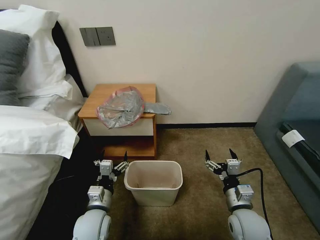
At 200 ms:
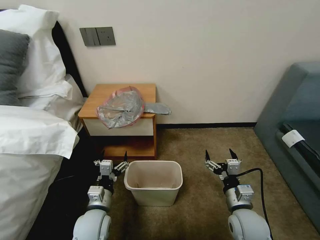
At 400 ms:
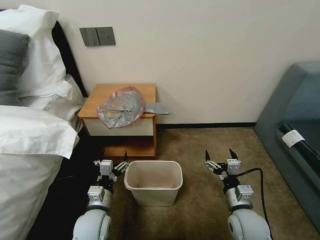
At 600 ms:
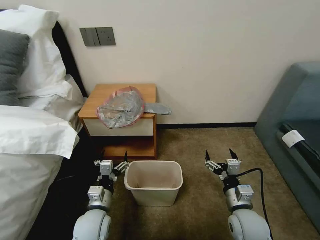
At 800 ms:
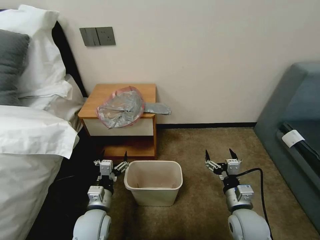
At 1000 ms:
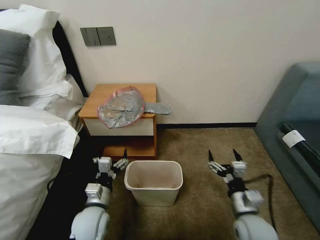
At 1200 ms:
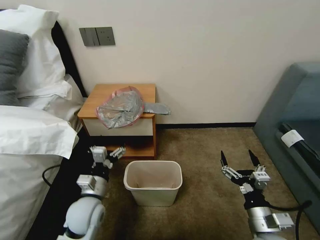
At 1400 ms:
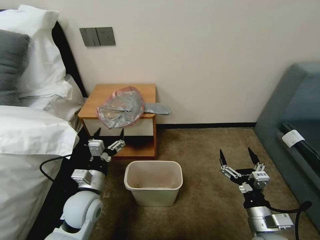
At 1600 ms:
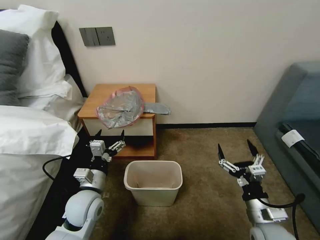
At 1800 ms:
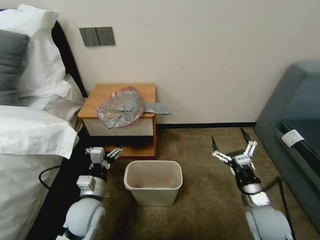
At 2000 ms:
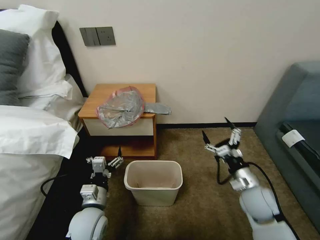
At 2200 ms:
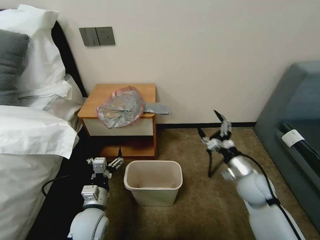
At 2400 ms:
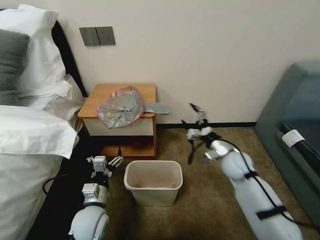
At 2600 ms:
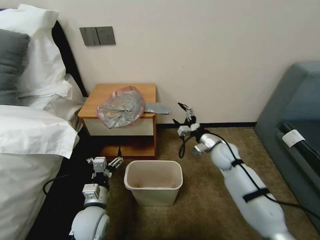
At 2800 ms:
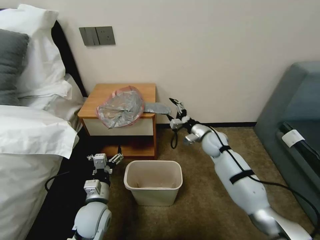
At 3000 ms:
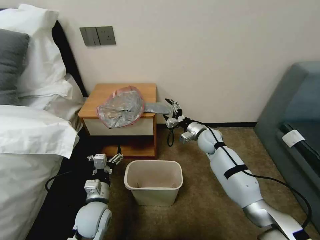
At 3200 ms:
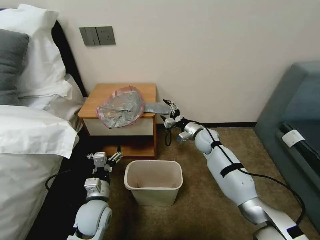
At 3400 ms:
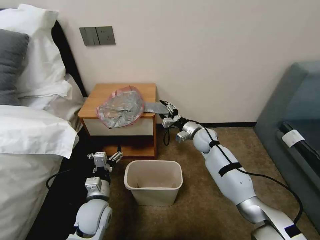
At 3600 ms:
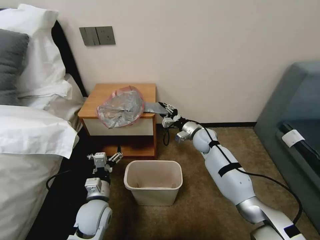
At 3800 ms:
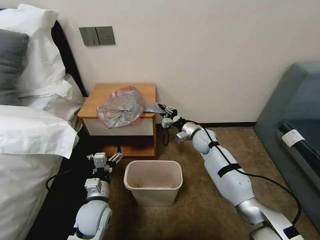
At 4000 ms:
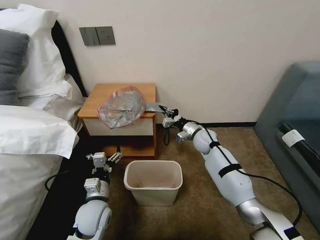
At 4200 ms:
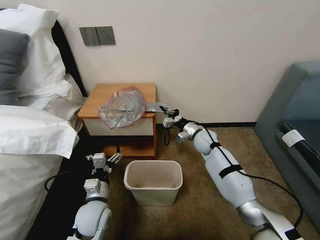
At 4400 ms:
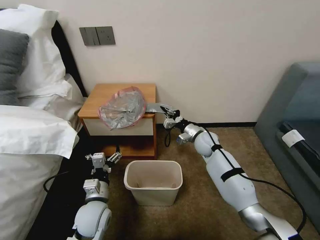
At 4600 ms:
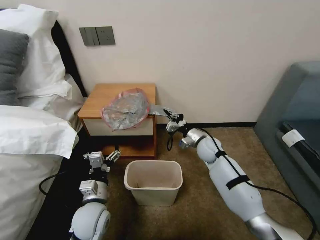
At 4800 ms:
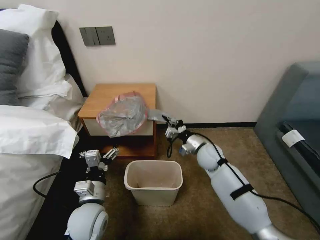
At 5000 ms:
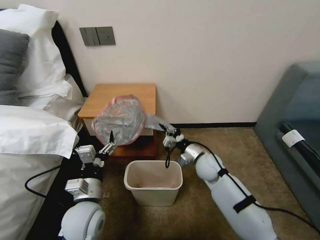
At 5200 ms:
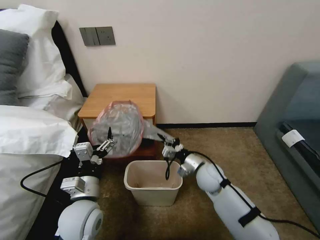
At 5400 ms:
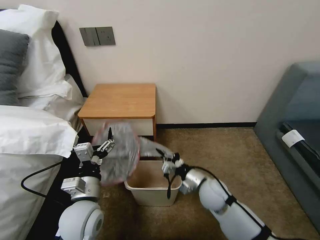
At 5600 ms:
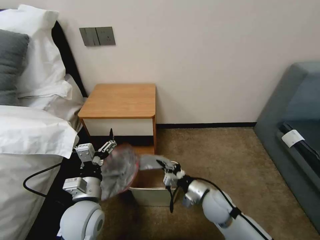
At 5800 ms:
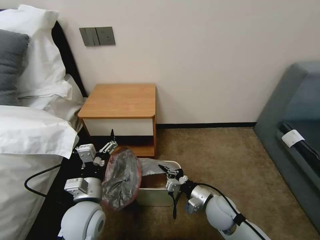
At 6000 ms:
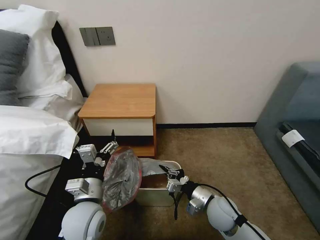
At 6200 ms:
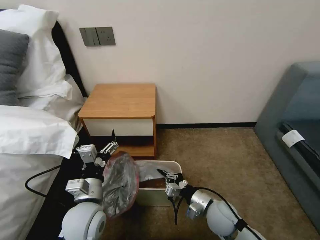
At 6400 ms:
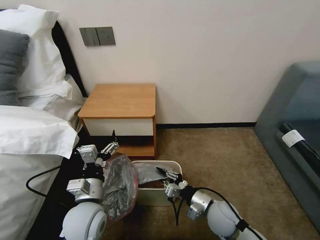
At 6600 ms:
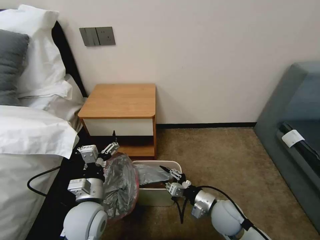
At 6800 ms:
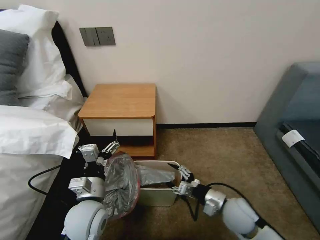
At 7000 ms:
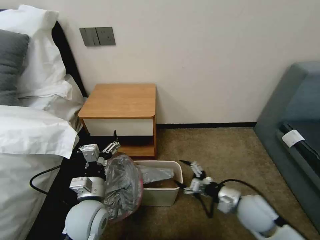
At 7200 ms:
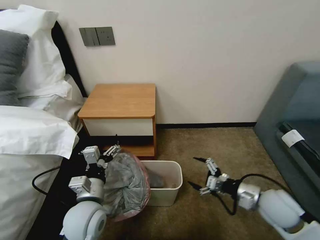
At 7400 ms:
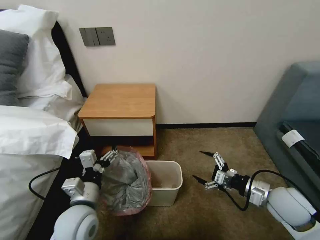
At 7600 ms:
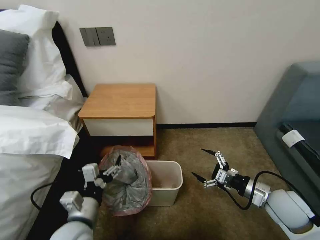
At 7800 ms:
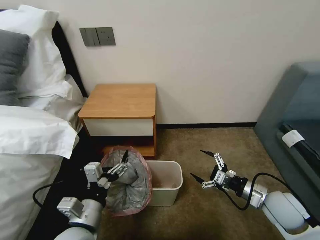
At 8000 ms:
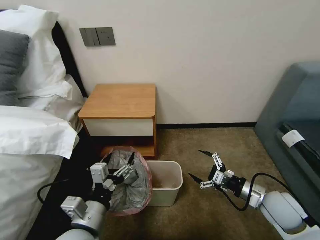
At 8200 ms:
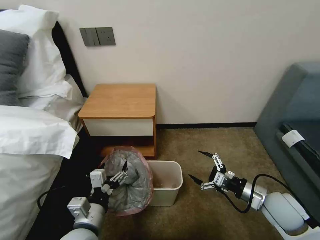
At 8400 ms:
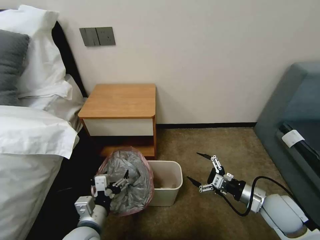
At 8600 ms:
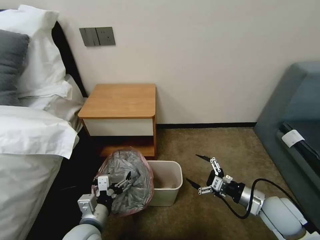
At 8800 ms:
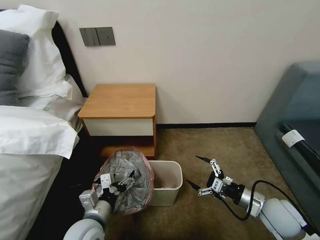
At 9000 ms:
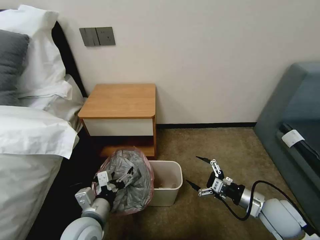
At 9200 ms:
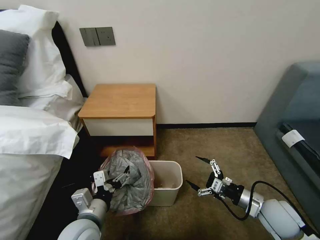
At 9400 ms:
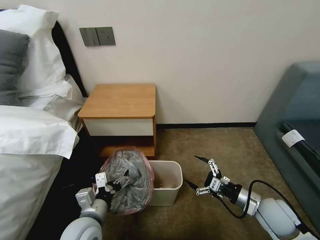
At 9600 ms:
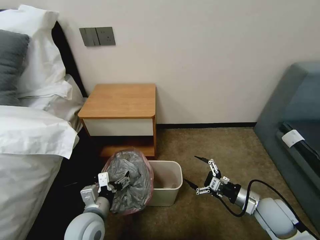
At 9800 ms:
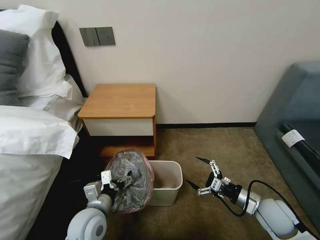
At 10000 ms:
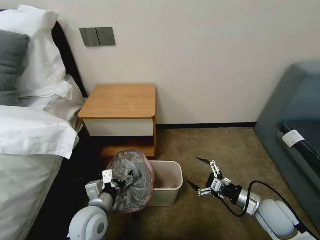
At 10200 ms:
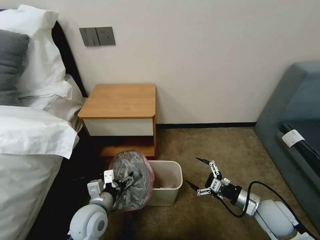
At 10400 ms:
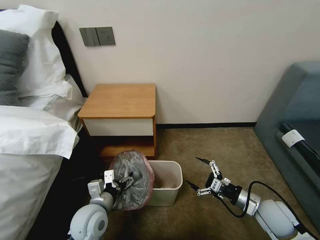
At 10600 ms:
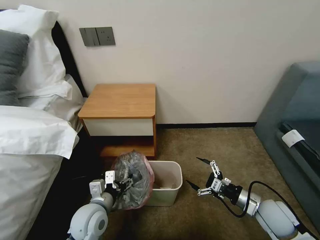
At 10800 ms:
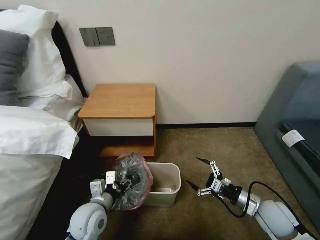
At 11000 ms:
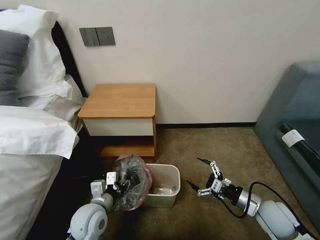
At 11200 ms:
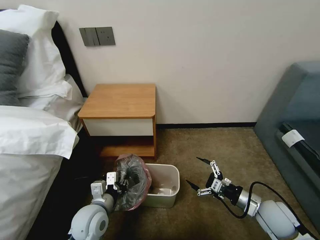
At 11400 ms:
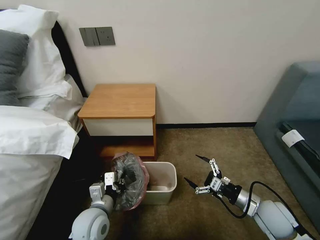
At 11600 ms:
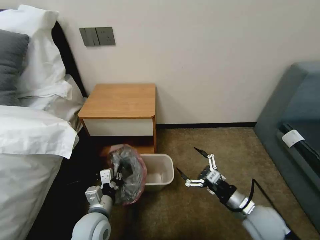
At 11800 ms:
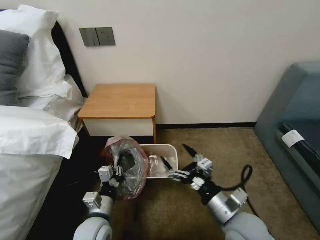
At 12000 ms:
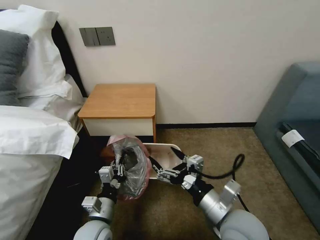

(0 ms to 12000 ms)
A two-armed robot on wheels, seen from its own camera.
Task of the whole recording: Pick up the garbage bag from the table and place it over the trash can.
1600 ms - 3000 ms: The left gripper changes place by roughly 5 cm. The right gripper shifts about 35 cm forward.
3000 ms - 4400 ms: The right gripper closes.
4400 ms - 6000 ms: The left gripper moves upward, some 10 cm. Meanwhile the right gripper goes approximately 25 cm backward.
6000 ms - 7600 ms: The right gripper goes about 20 cm to the right and upward, and opens up.
9000 ms - 10400 ms: The left gripper shifts by approximately 5 cm.
10400 ms - 12000 ms: The left gripper closes up. Meanwhile the right gripper moves to the left and upward, roughly 20 cm.

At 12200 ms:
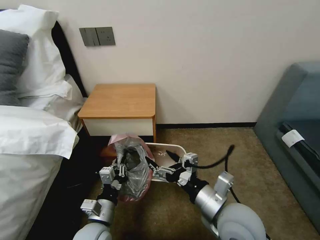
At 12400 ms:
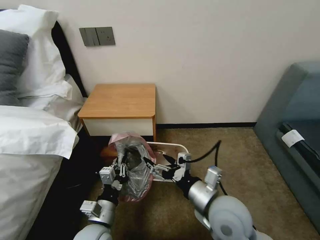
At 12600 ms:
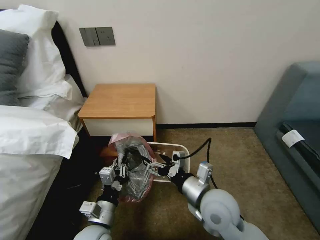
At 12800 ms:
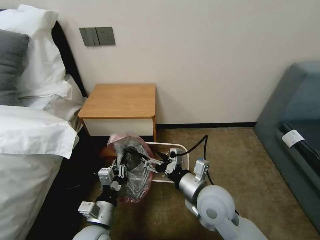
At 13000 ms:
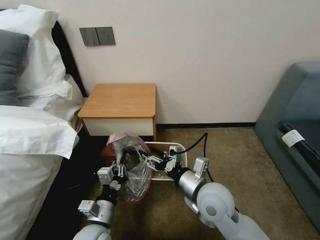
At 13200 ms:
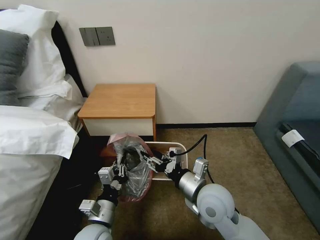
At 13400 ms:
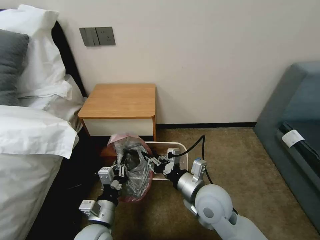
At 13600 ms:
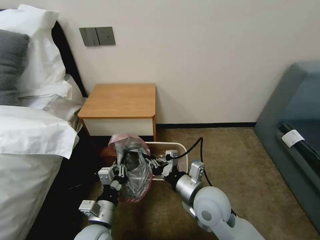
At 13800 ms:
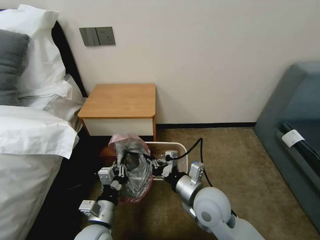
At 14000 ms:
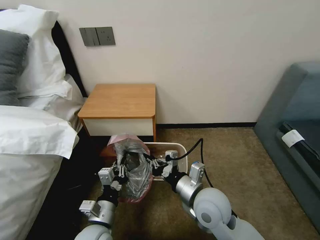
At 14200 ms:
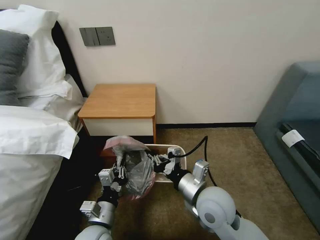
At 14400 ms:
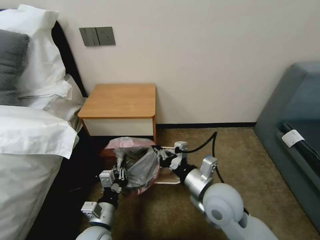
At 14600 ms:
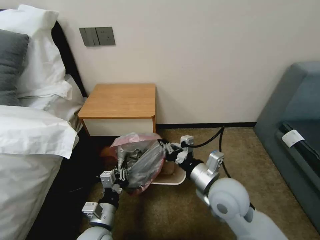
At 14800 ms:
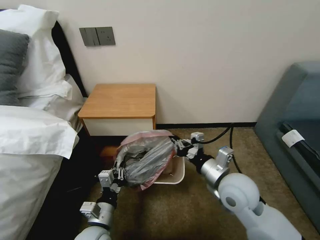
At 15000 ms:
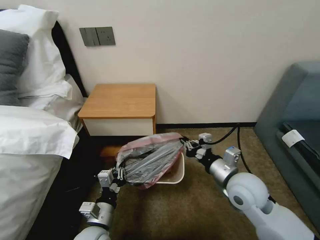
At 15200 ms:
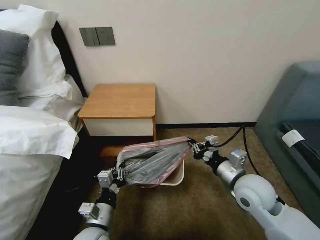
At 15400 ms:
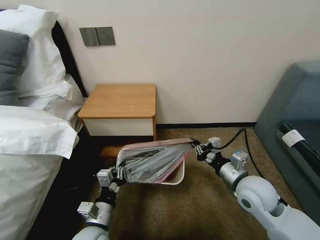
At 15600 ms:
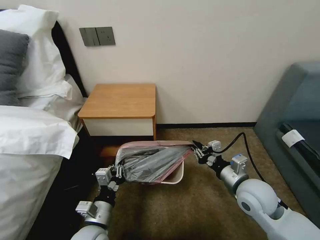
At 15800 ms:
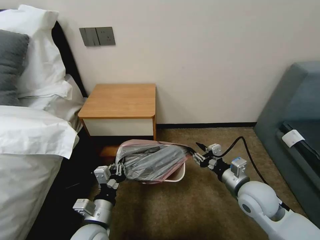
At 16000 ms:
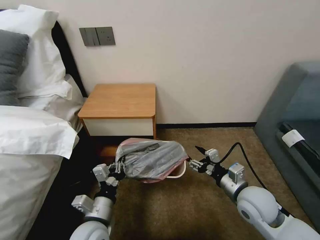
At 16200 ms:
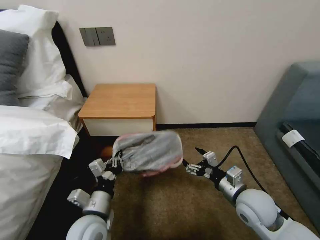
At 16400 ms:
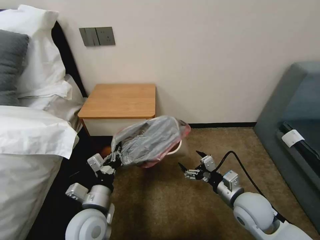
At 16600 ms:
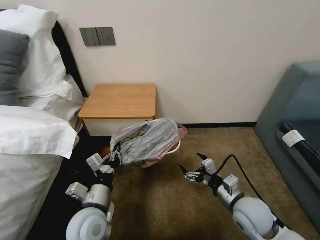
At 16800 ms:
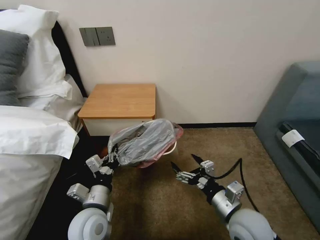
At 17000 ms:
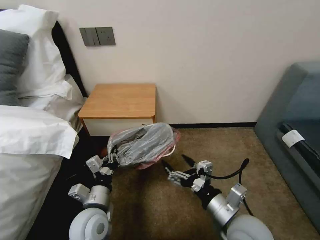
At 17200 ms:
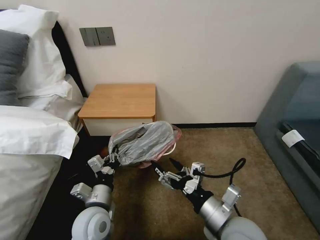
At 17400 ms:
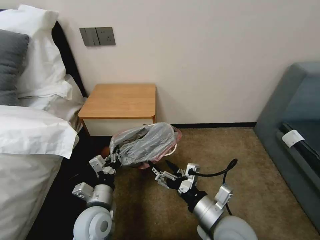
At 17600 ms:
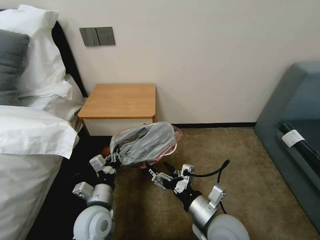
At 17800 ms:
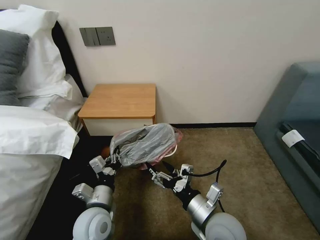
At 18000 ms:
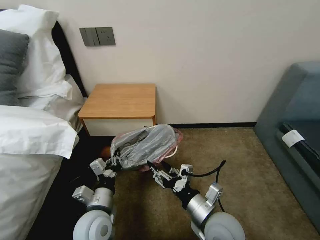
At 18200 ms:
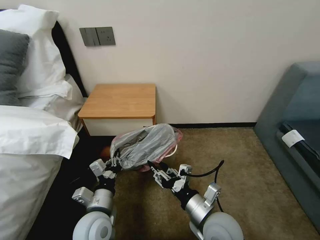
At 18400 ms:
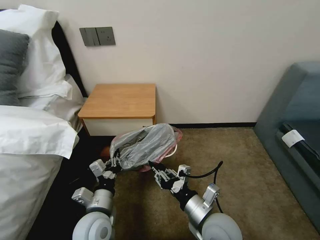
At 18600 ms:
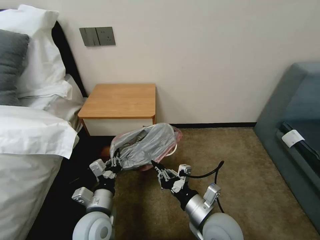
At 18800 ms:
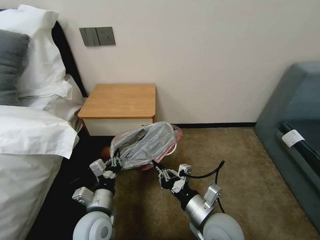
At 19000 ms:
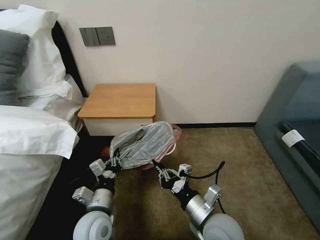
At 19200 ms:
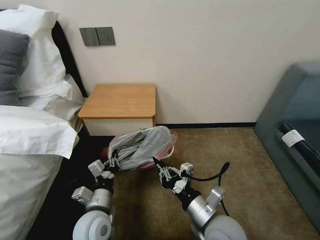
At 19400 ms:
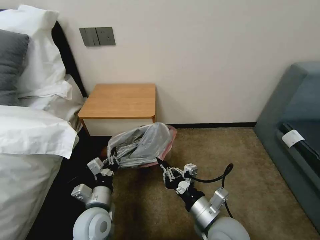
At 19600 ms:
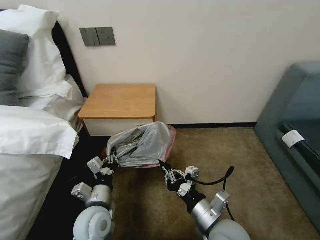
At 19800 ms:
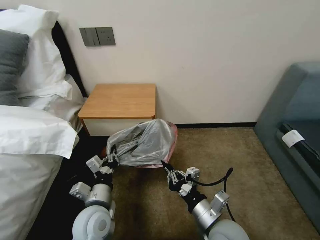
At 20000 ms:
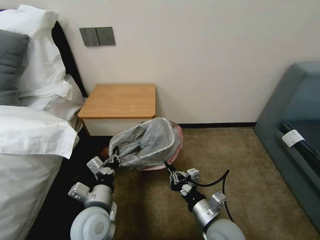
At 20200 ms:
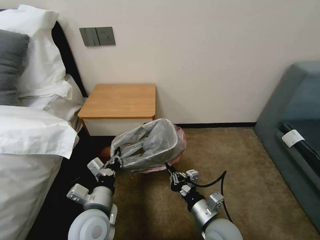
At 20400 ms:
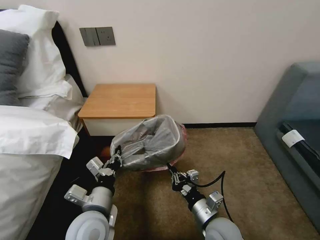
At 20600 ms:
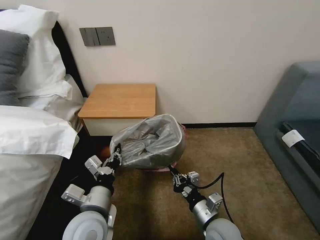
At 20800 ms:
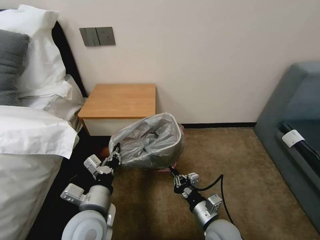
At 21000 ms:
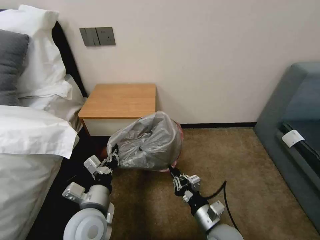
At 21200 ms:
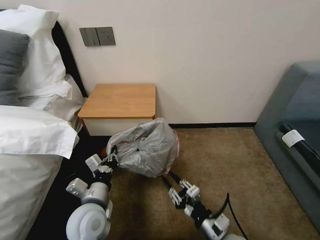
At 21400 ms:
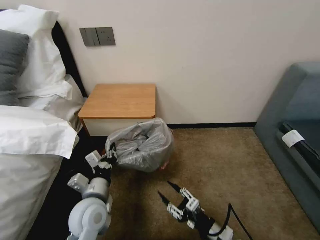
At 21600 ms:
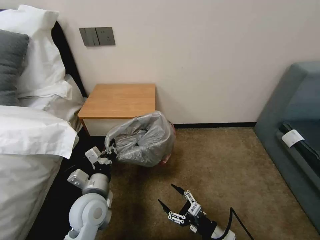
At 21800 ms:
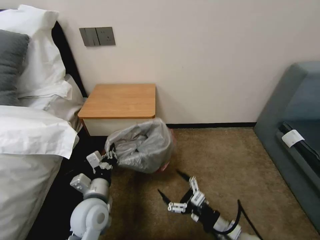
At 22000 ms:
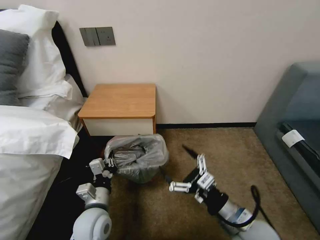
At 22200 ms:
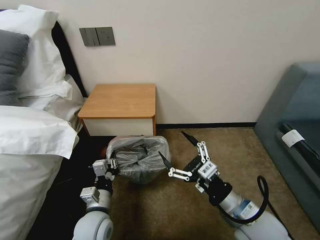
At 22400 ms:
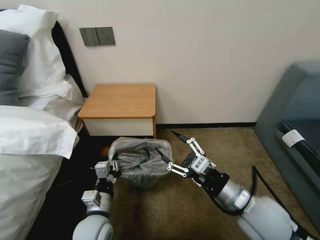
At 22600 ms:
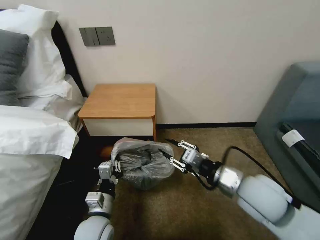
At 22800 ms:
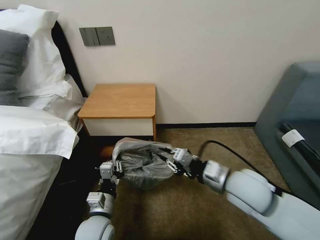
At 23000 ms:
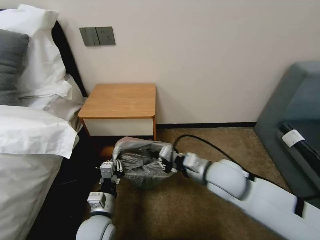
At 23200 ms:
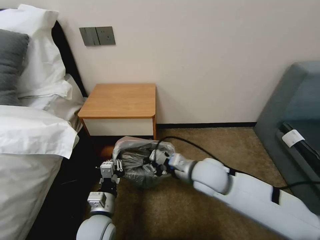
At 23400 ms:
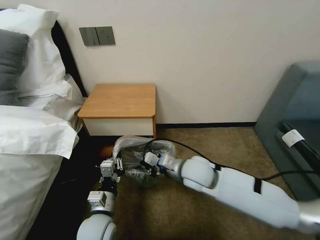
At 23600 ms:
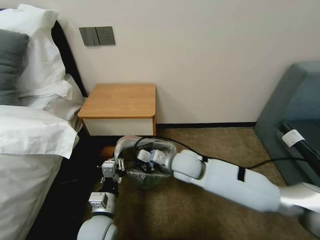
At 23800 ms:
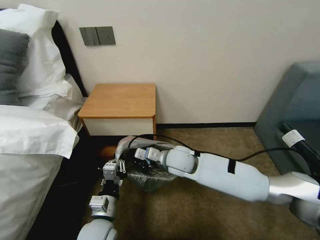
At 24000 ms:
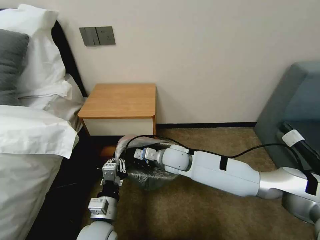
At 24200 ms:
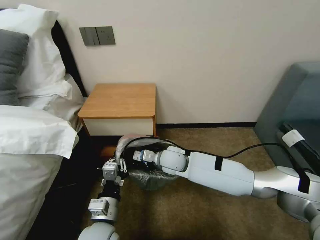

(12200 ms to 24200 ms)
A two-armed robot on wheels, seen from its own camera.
Task of the whole recording: Pick up the garbage bag from the table and place it over the trash can.
12200 ms - 13800 ms: The right gripper goes approximately 5 cm forward, and closes.
13800 ms - 15200 ms: The right gripper goes approximately 10 cm to the right.
15200 ms - 16600 ms: The right gripper goes approximately 5 cm downward, and opens its fingers; the left gripper heads upward, covering about 5 cm.
16600 ms - 18200 ms: The right gripper travels to the left by roughly 10 cm, and closes its fingers.
18200 ms - 19800 ms: The right gripper closes its fingers.
19800 ms - 21200 ms: The right gripper goes some 5 cm downward.
21200 ms - 22600 ms: The left gripper shifts approximately 5 cm downward. The right gripper is displaced upward and forward by approximately 20 cm, and opens, then closes once more.
22600 ms - 24200 ms: The right gripper travels to the left, forward and downward by some 25 cm, and closes its fingers.
